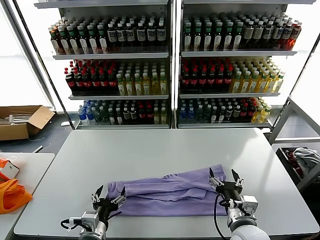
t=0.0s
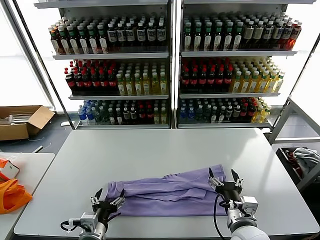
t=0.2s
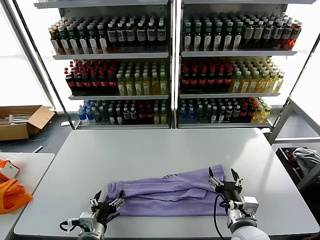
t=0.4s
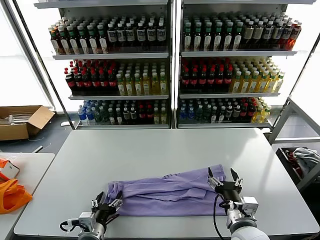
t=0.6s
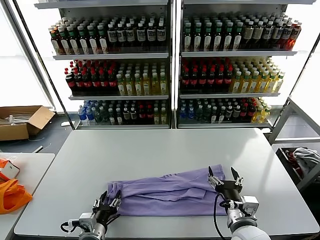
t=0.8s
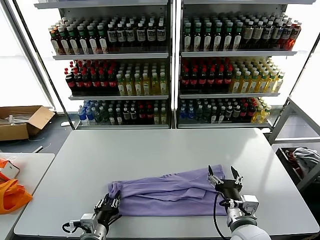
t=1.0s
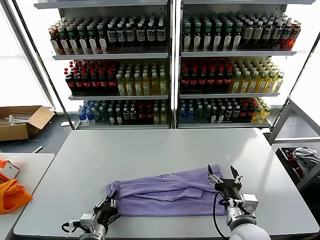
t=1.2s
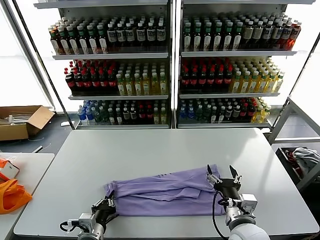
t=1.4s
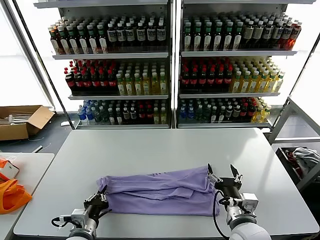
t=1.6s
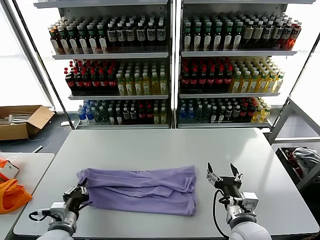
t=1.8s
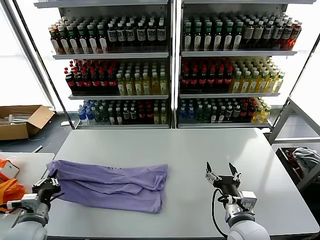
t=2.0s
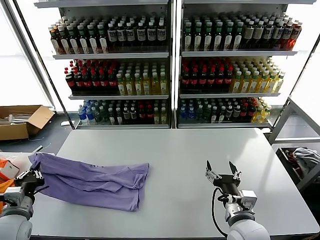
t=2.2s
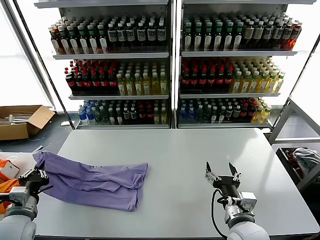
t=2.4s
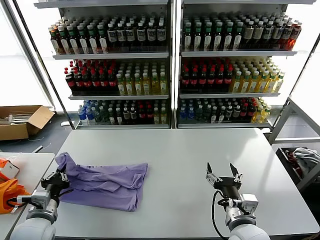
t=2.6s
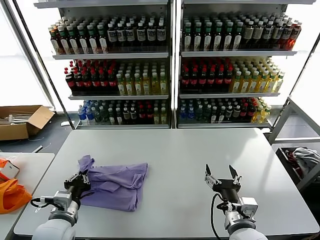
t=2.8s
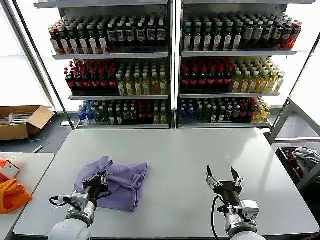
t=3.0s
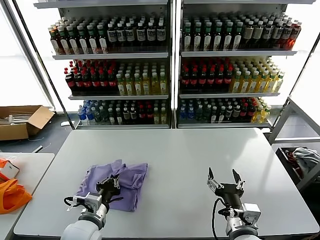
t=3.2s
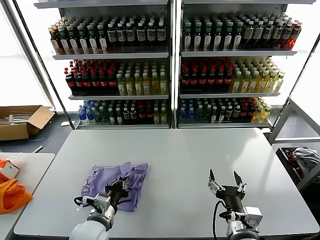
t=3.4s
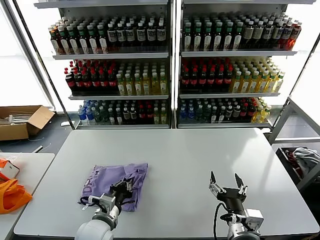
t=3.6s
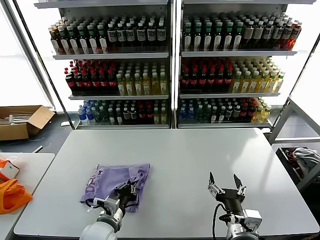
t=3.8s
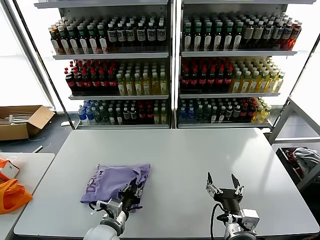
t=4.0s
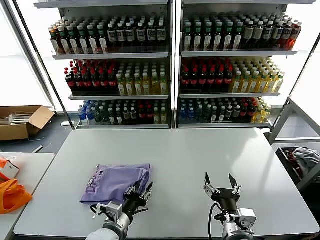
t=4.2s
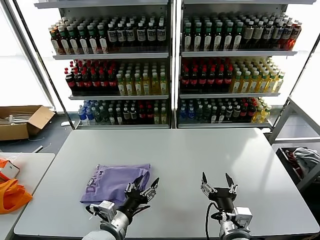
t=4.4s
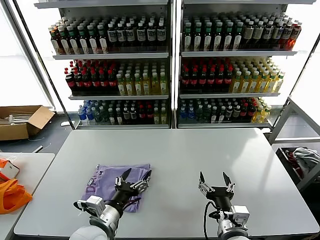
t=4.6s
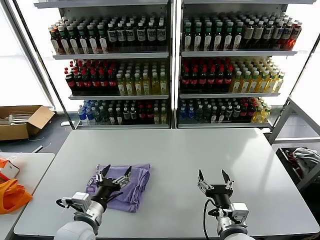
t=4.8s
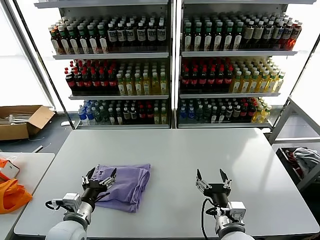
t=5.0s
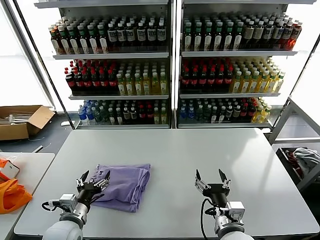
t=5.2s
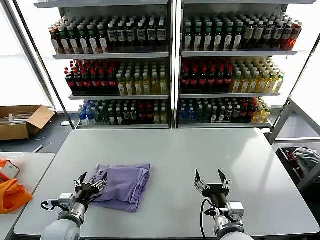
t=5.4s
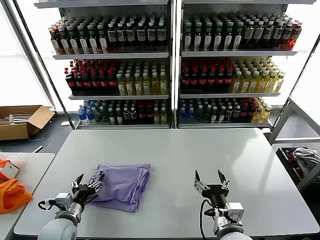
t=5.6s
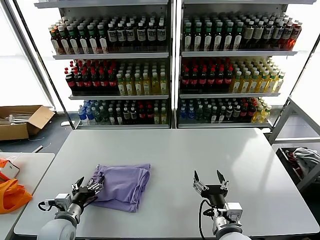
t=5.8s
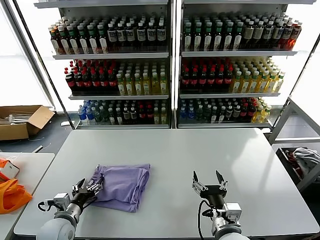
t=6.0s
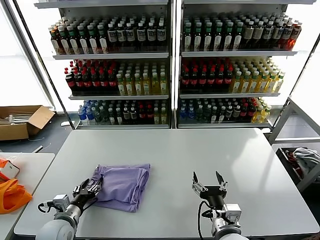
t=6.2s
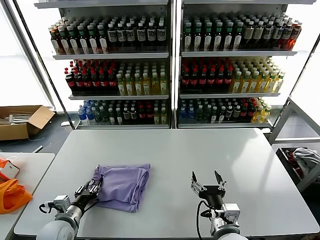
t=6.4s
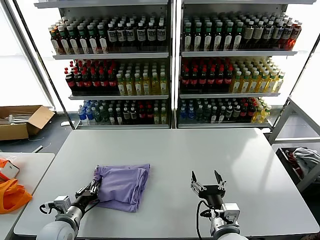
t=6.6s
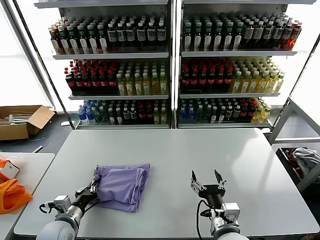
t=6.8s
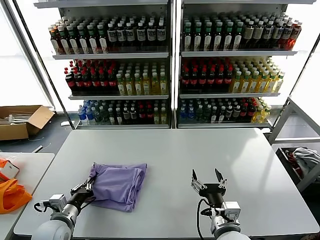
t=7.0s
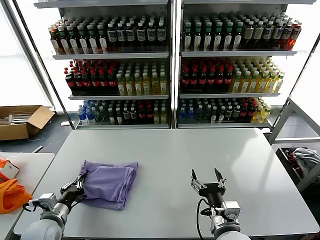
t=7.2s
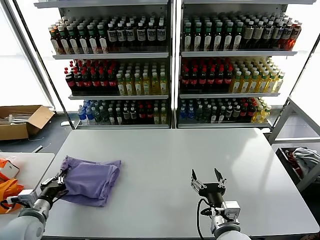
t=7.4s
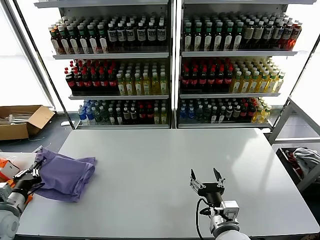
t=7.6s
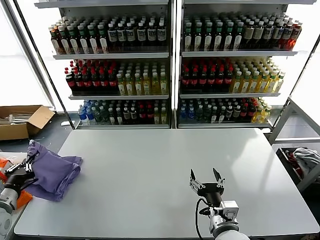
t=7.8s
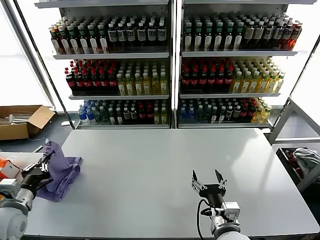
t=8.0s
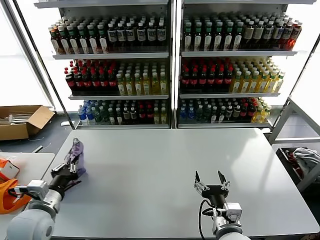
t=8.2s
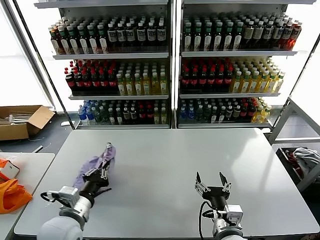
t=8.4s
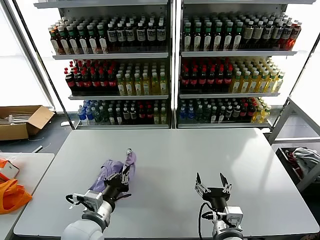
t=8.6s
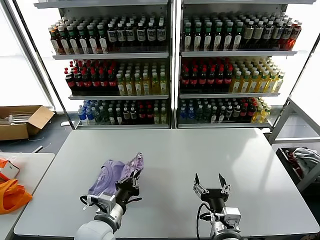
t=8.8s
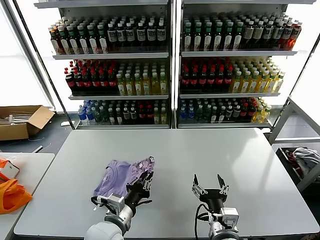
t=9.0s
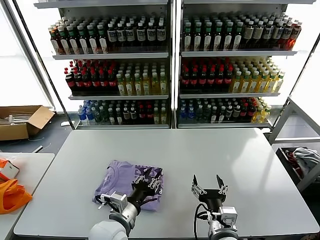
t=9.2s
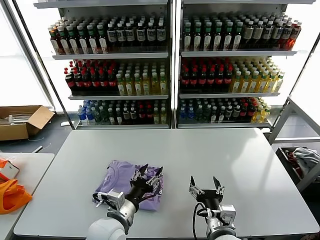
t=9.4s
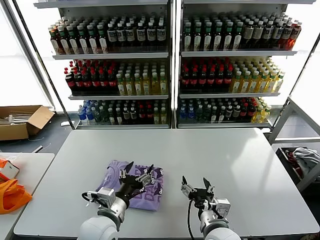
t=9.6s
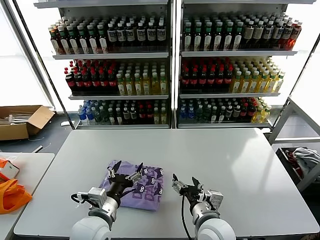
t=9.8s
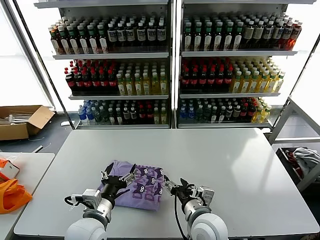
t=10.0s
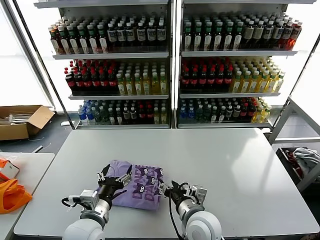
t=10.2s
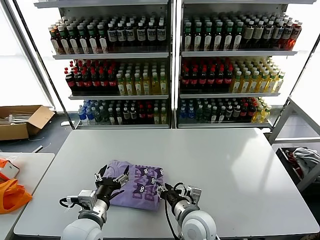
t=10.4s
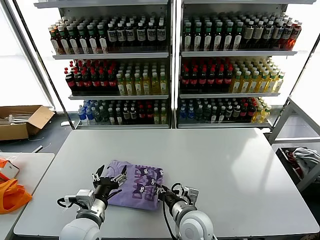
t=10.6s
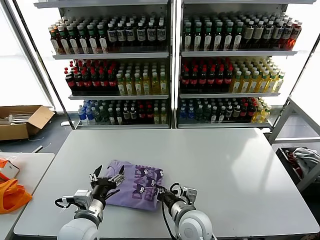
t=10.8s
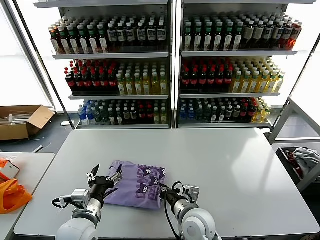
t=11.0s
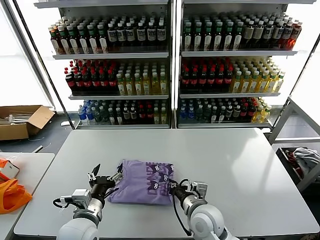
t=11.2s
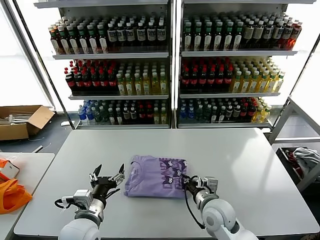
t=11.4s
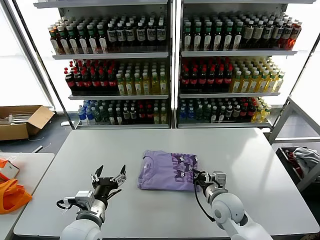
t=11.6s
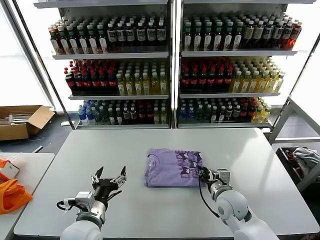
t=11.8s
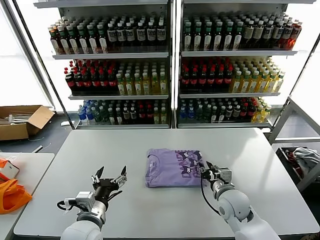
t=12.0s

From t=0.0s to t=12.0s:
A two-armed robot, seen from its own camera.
Task of the whole recording: fold and organize the clothes.
Step, from t=0.0s to t=1.2s: use the left gripper to clamp the left edge of the fabric.
Step, from t=1.4s to t=4.2s: use the left gripper to drag the left edge of the fabric to the left and folds it over the right edge.
Step, from t=4.4s to t=9.2s: Flip the folded clothes over with left gripper.
From t=0.0s to t=1.6s: The left gripper closes.
From t=1.6s to t=3.0s: The left gripper moves upward, about 5 cm, and goes to the left and returns, roughly 15 cm each way.
From t=3.0s to t=4.4s: The left gripper shifts about 10 cm to the right, and opens its fingers.
From t=4.4s to t=6.0s: The left gripper is displaced to the left by some 15 cm.
From t=6.0s to t=7.6s: The left gripper moves to the left and upward, some 15 cm, and closes up.
From t=7.6s to t=9.0s: The left gripper shifts roughly 30 cm to the right.
From t=9.0s to t=10.4s: The right gripper travels forward and to the left by about 10 cm, and closes, while the left gripper opens up.
From t=10.4s to t=12.0s: The right gripper moves to the right and forward, about 15 cm, and closes and opens again.

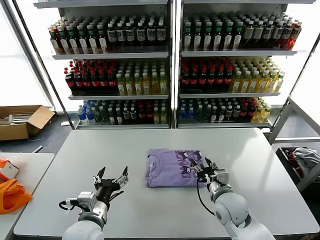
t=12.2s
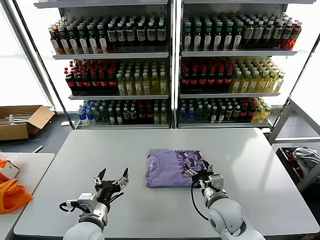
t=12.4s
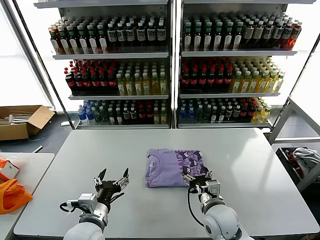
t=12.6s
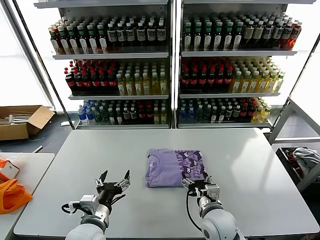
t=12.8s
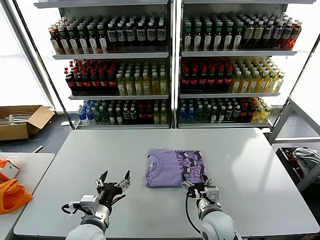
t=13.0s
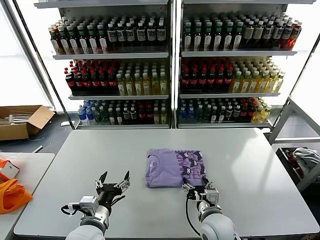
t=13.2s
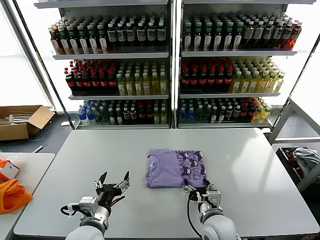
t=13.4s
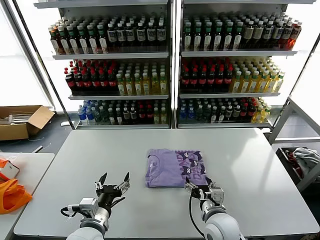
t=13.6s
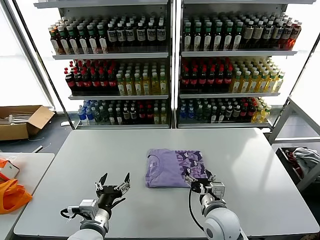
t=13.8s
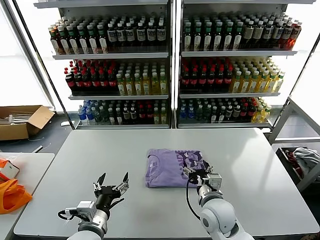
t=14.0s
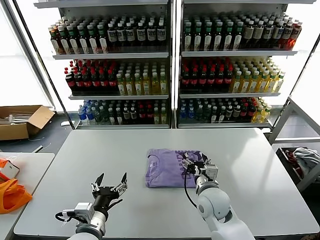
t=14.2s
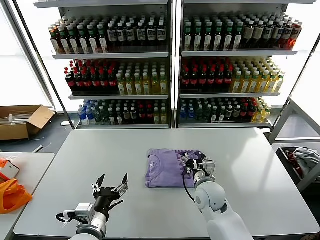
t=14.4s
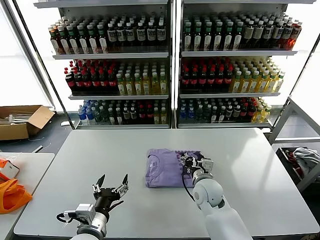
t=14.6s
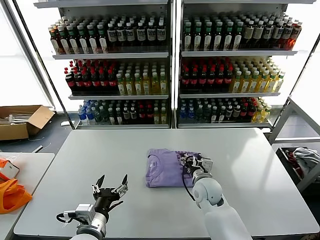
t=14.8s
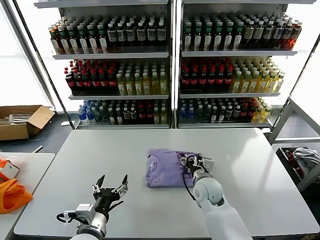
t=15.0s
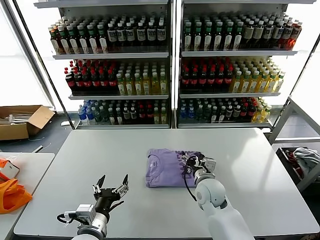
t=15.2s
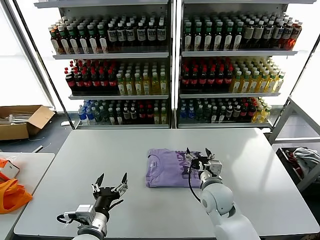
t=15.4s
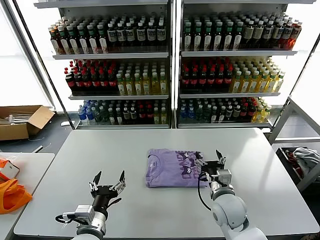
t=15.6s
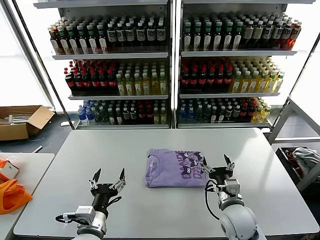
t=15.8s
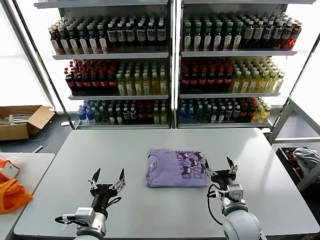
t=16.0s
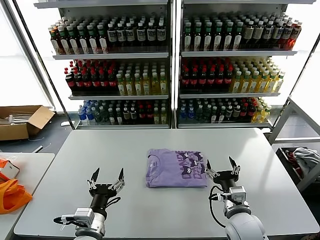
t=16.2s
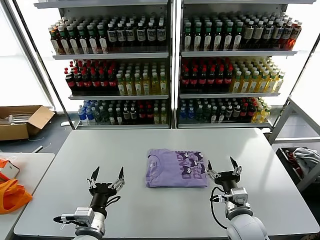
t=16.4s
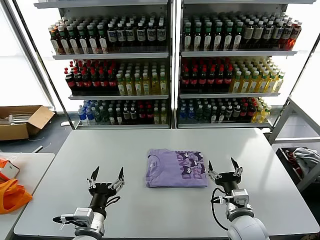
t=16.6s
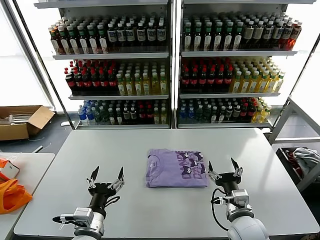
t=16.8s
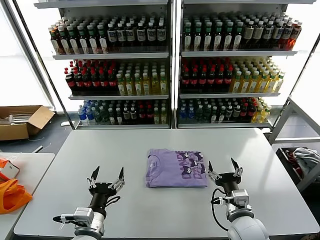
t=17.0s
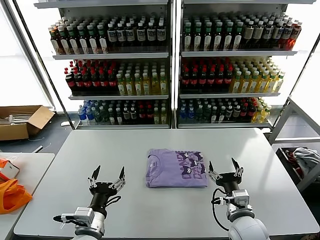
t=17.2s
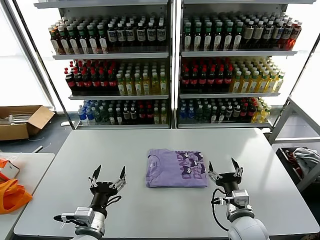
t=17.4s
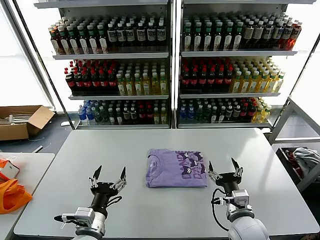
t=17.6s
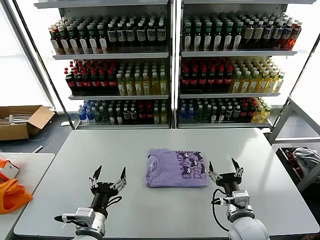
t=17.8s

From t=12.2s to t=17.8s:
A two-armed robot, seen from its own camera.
Task of the whole recording: fold and organize the clothes.
Step, from t=12.2s to t=15.2s: Drag the clothes to the center of the table.
From t=12.2s to t=13.6s: The right gripper is displaced backward by about 5 cm, and opens.
From t=13.6s to t=15.0s: The right gripper moves forward, some 15 cm.
From t=15.0s to t=16.4s: The right gripper goes approximately 15 cm backward and to the right.
From t=16.4s to t=17.8s: The two grippers keep their place.
